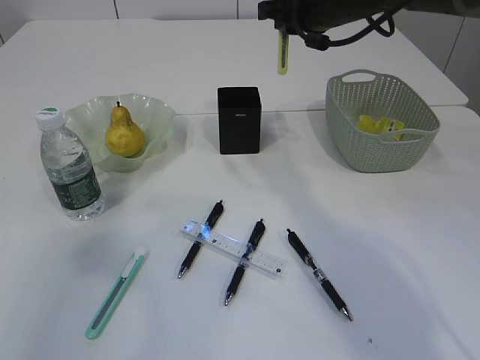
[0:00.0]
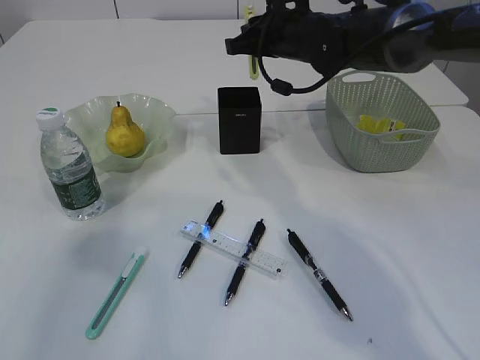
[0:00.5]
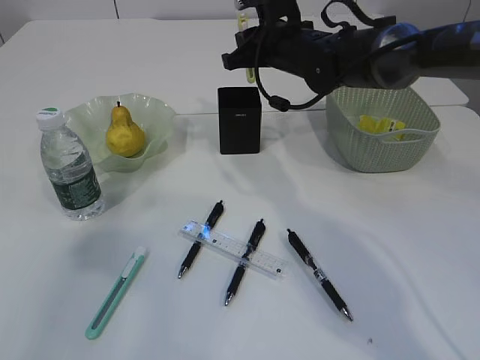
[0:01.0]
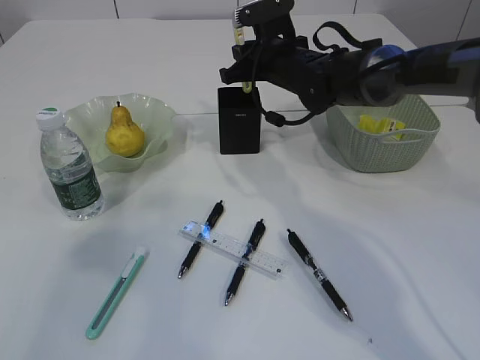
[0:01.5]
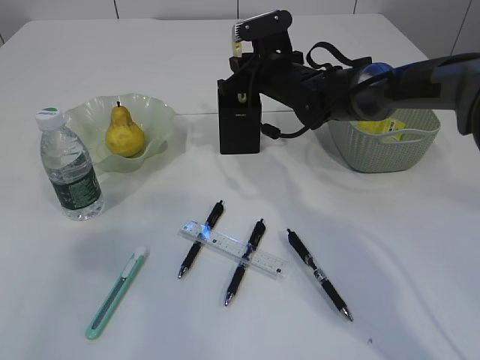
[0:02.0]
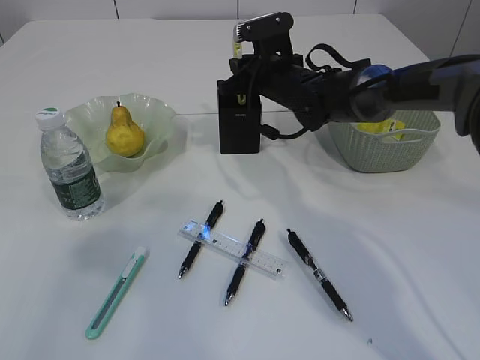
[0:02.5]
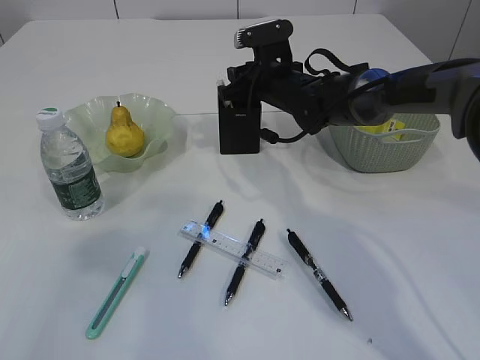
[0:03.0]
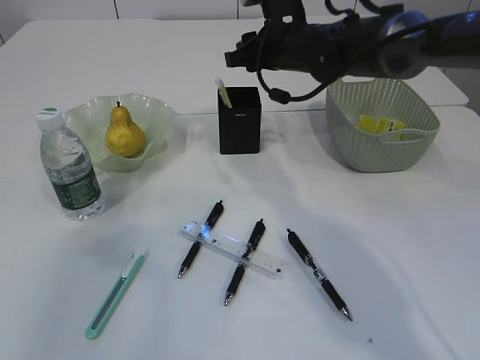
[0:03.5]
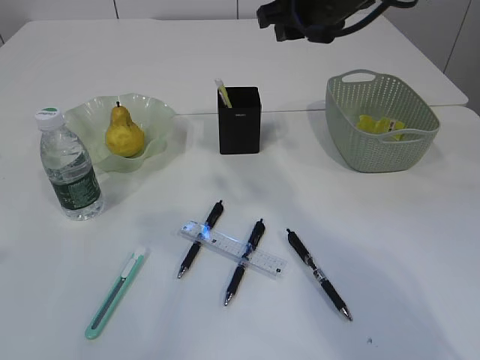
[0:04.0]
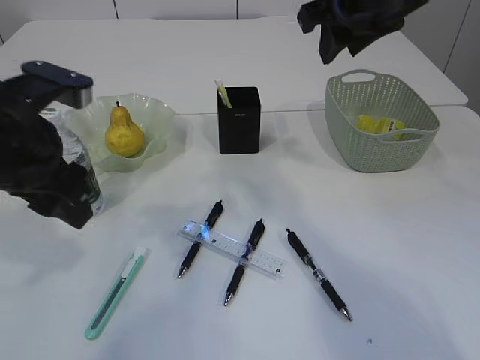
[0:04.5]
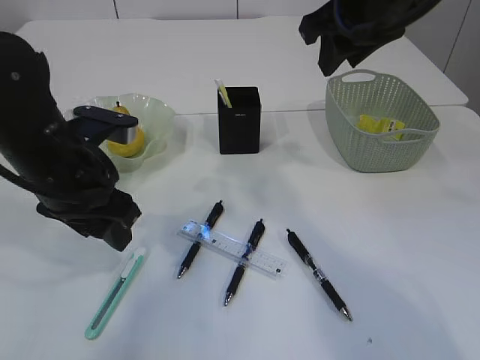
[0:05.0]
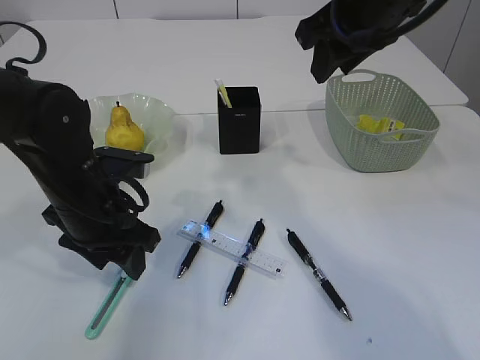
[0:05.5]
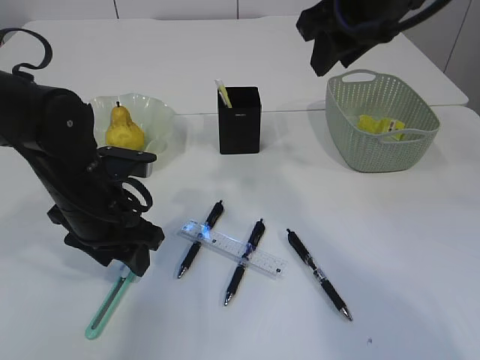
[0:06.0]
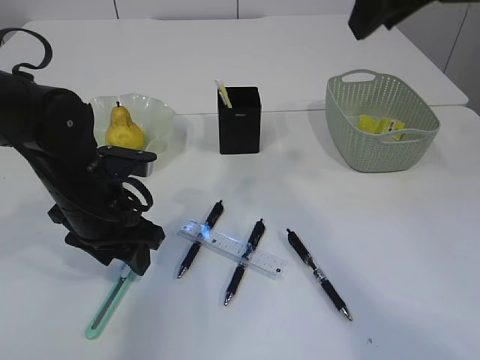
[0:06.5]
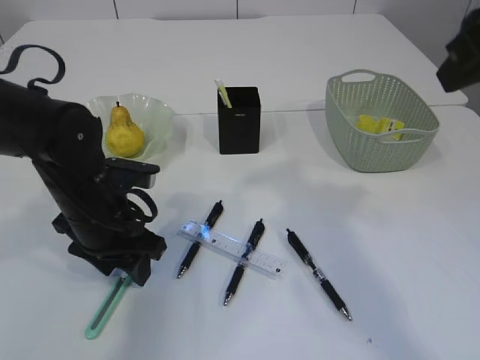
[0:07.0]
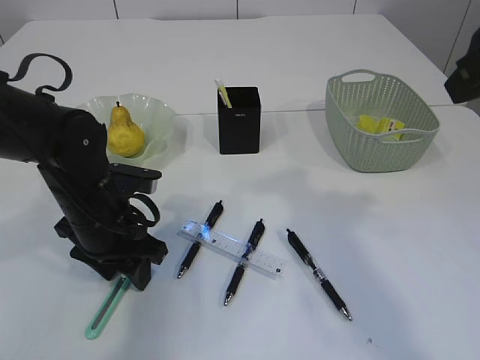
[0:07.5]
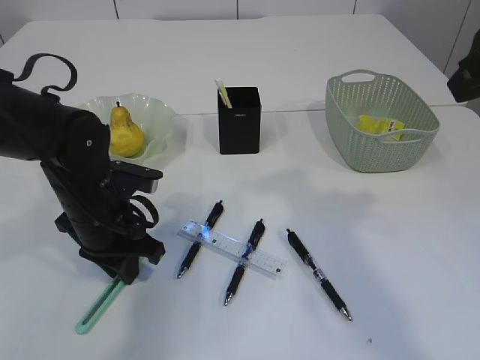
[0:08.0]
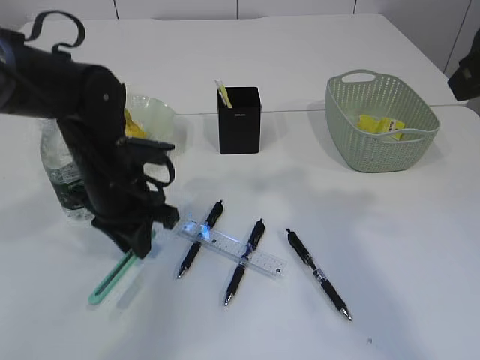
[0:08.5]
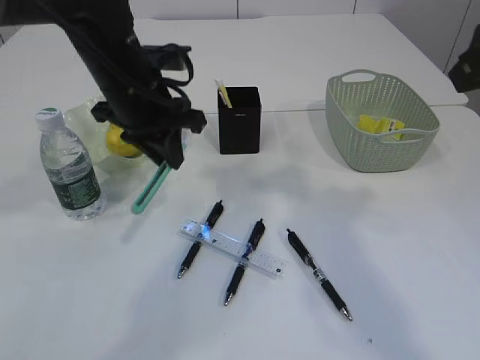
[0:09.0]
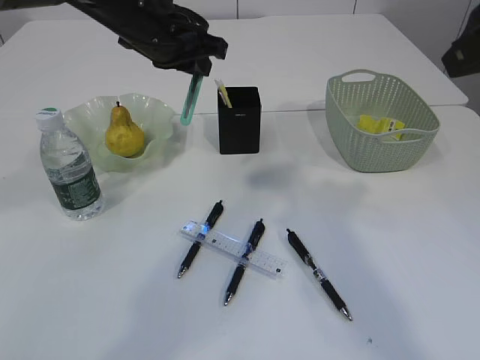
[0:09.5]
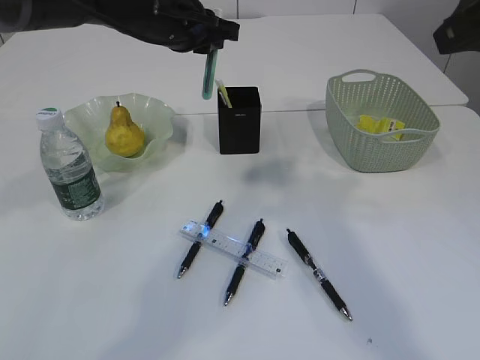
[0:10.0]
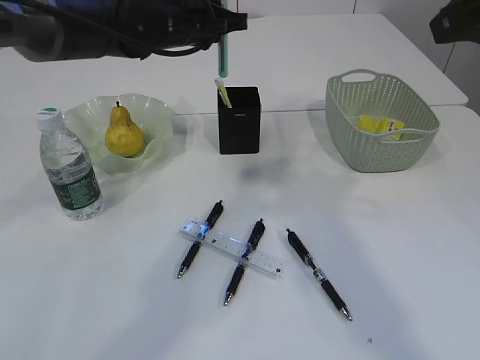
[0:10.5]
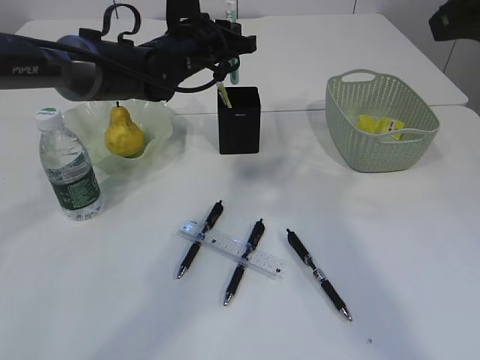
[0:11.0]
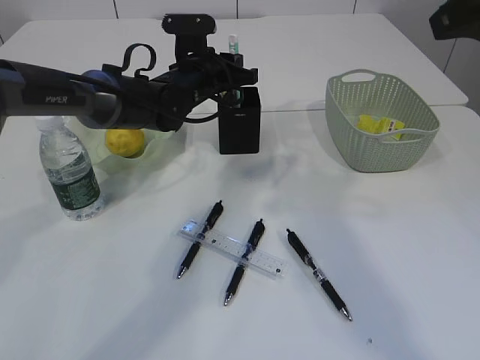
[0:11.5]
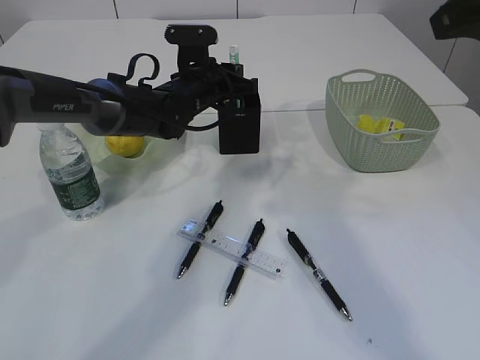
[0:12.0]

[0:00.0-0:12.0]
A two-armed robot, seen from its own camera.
Step, 0:00.0 to 0:03.5: place the yellow knife into the pen holder.
Step, 0:04.0 to 0:08.5: pick up the blue knife.
0:00.0 to 0:02.0: The right gripper heads downward, covering about 10 cm.
0:02.0 to 0:04.0: The right gripper heads upward and backward, covering roughly 15 cm, and opens up. The left gripper shifts some 5 cm to the right.
0:04.0 to 0:06.0: The left gripper is displaced downward, forward and to the right by roughly 25 cm, while the right gripper travels backward by about 5 cm.
0:06.0 to 0:08.0: The right gripper shifts some 15 cm backward and to the right; the left gripper closes its fingers.
0:08.0 to 0:10.0: The left gripper heads upward and forward, covering approximately 20 cm.
0:10.0 to 0:12.0: The left gripper heads downward, covering roughly 10 cm.

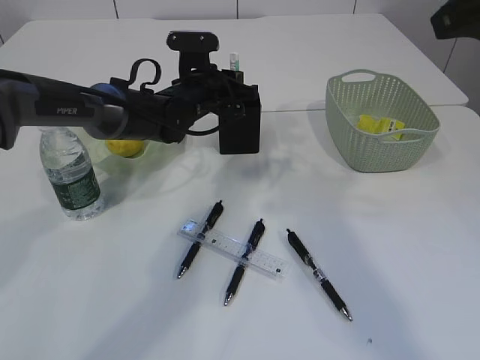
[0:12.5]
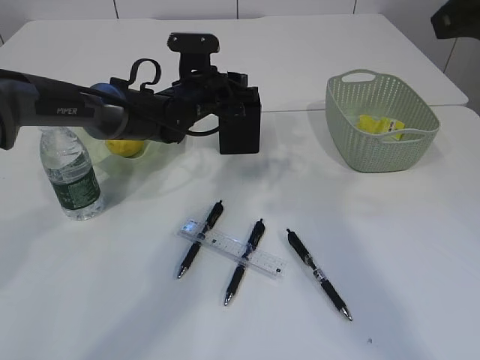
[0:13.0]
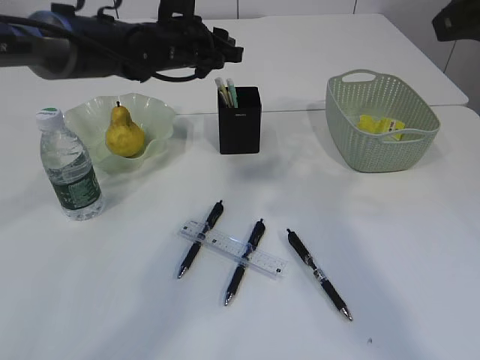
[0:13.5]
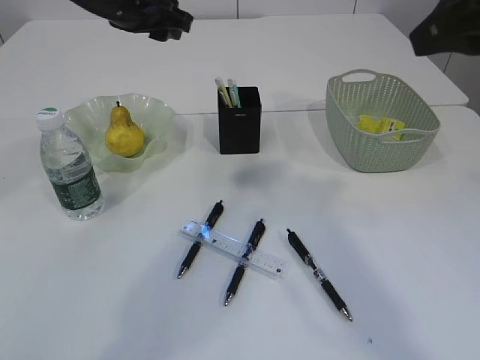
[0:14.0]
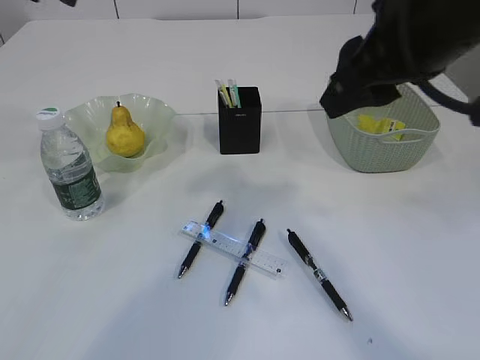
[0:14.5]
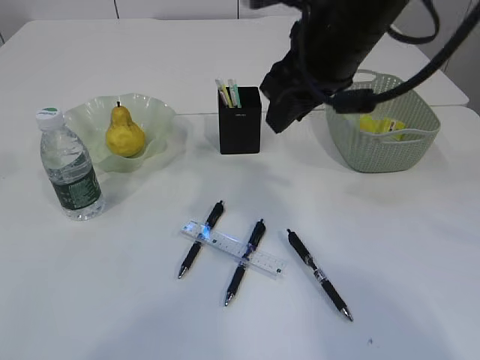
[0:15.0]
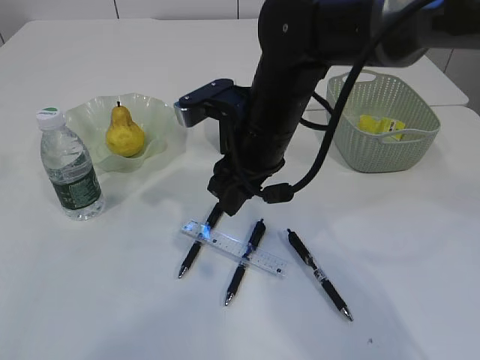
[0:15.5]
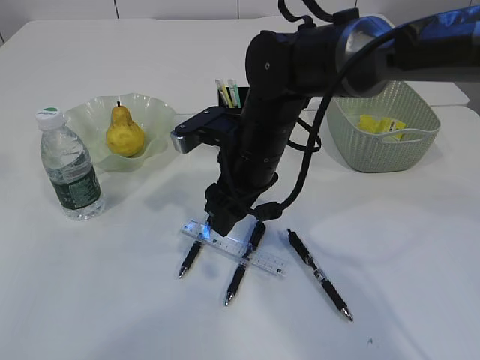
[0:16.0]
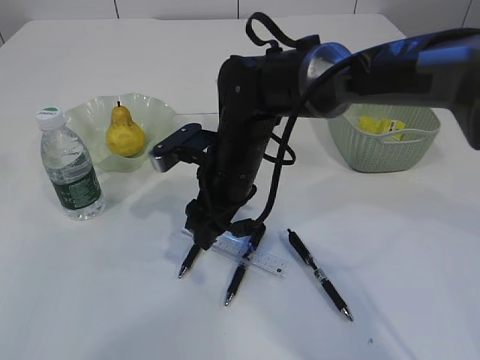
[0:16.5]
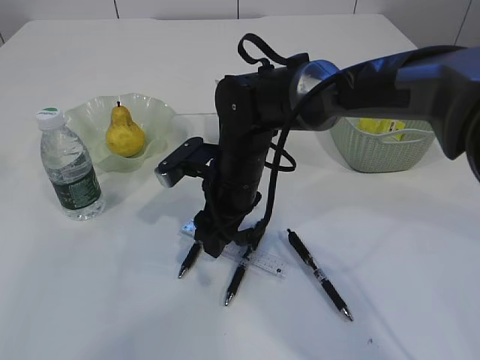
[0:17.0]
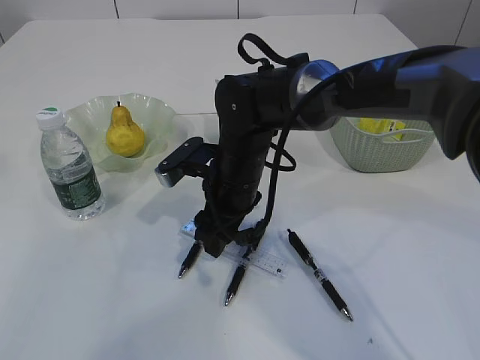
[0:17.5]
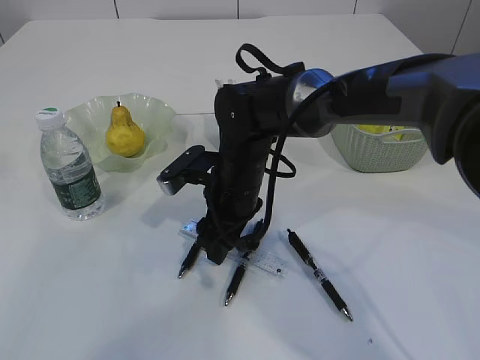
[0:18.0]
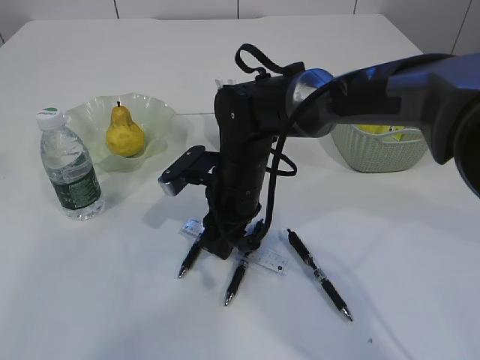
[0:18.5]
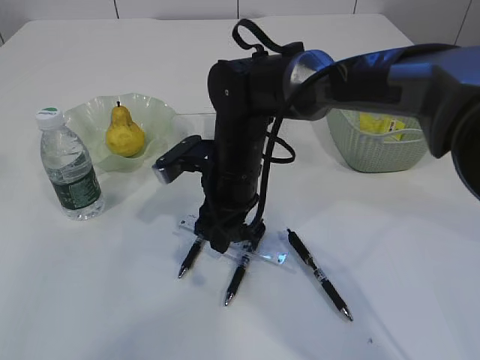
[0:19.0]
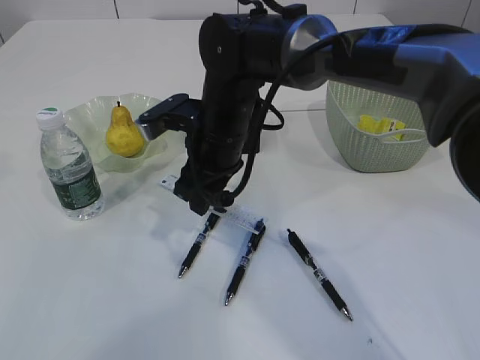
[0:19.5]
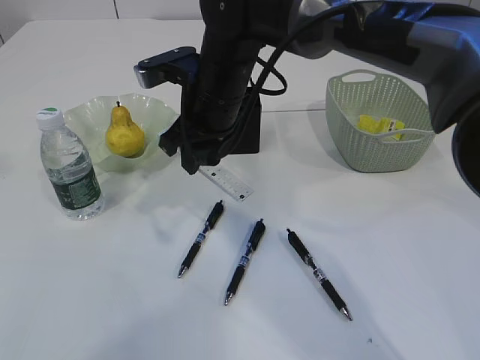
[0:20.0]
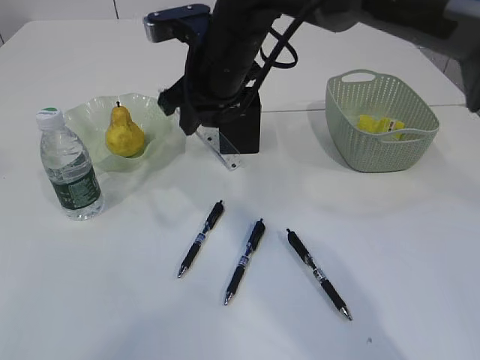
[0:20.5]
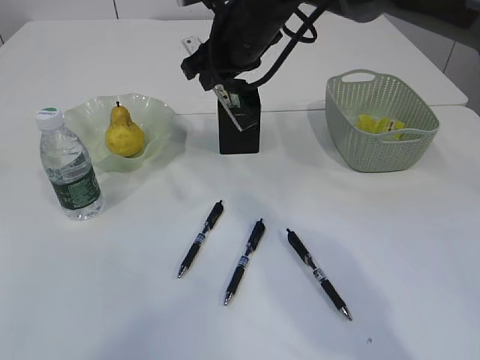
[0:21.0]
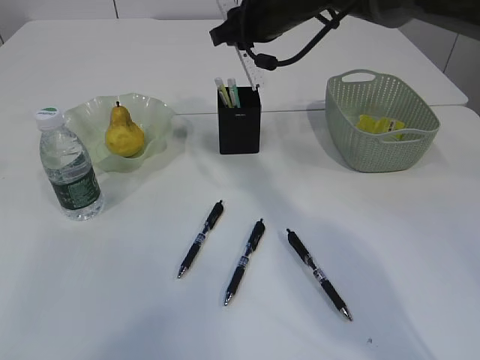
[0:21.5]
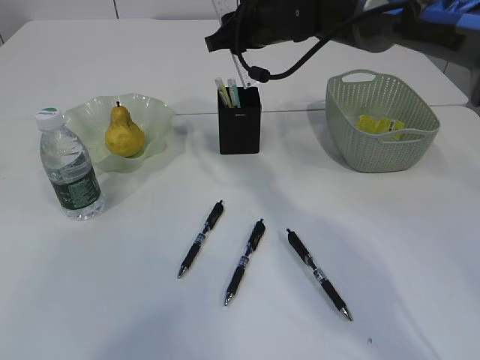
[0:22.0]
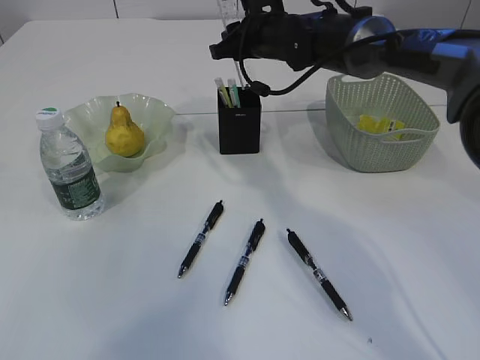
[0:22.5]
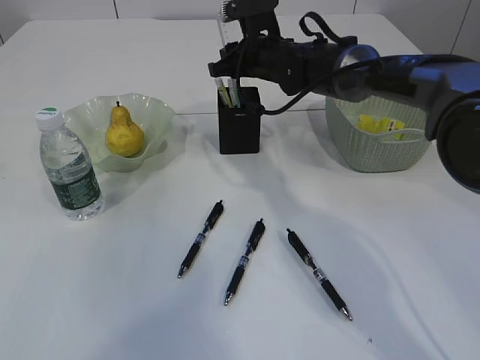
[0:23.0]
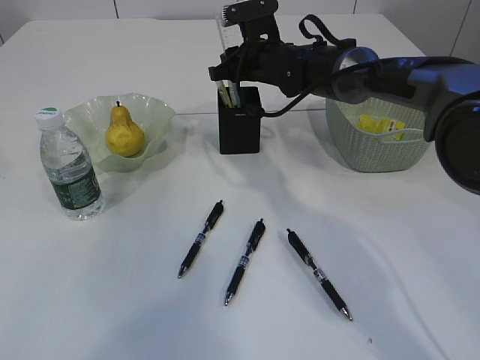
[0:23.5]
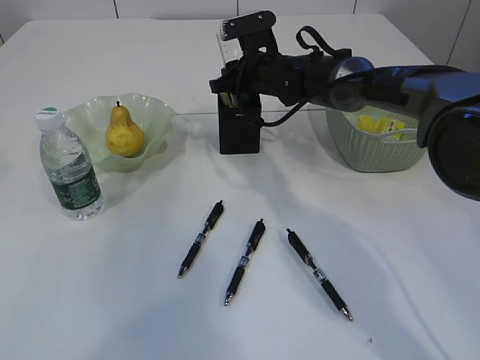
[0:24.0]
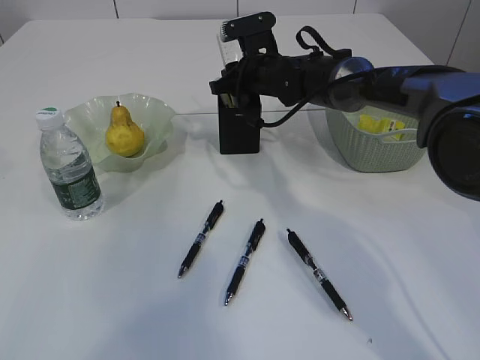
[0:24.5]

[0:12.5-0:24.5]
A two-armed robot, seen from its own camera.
Step, 0:14.0 to 0:19.5: pick up the ruler.
0:12.5 to 0:14.5: The right gripper is displaced to the left by some 5 cm. The left gripper moves upward, to the left and backward, some 30 cm, and opens up.
0:14.5 to 0:16.5: The right gripper goes about 25 cm downward, to the left and forward; the left gripper moves backward, approximately 5 cm.
0:16.5 to 0:18.5: The right gripper closes.
0:18.5 to 0:20.5: The right gripper heads upward, covering about 15 cm.
0:20.5 to 0:22.5: The right gripper is displaced forward and to the right by roughly 15 cm.
0:22.5 to 0:24.5: The right gripper moves downward, about 5 cm.

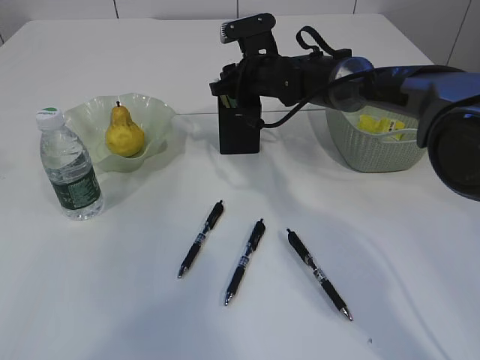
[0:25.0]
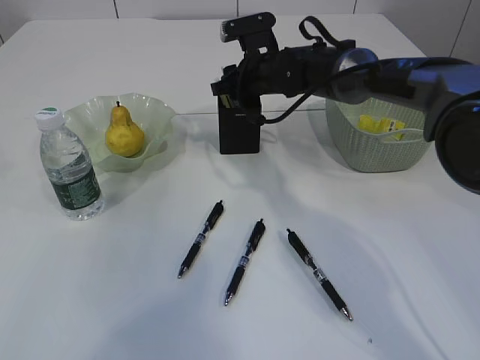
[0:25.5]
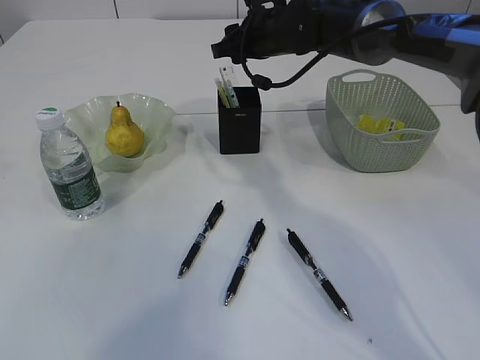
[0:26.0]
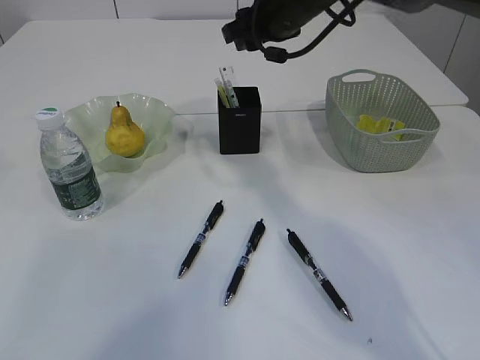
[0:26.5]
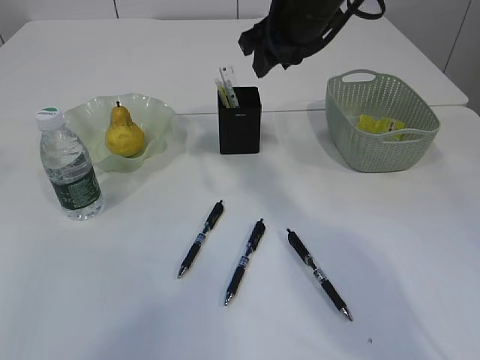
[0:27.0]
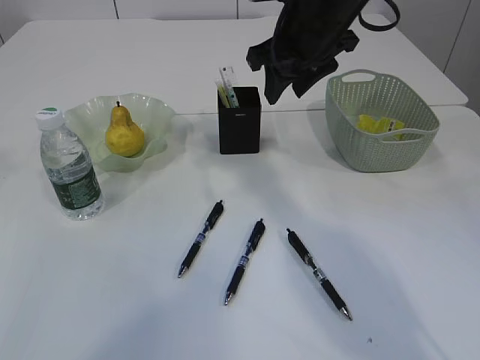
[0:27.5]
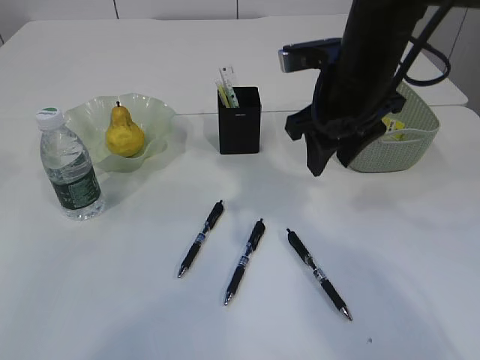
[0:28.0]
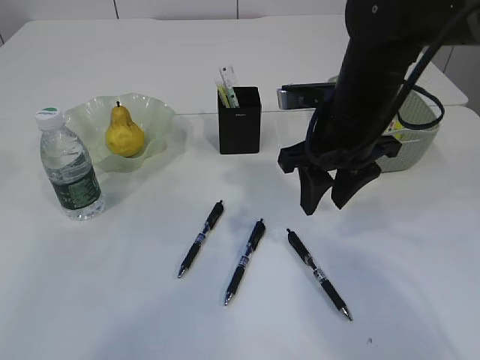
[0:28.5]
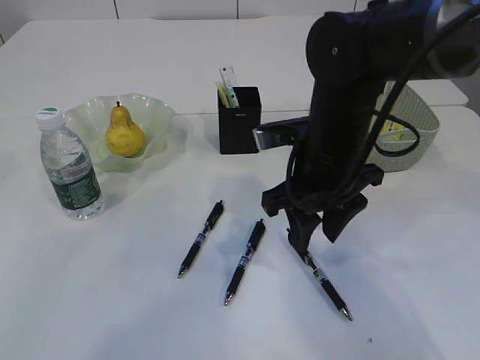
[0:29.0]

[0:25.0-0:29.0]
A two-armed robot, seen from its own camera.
0:25.0 to 0:27.0: The right gripper travels upward and backward by roughly 15 cm.
0:27.0 to 0:29.0: The right gripper moves backward and downward, approximately 15 cm.
